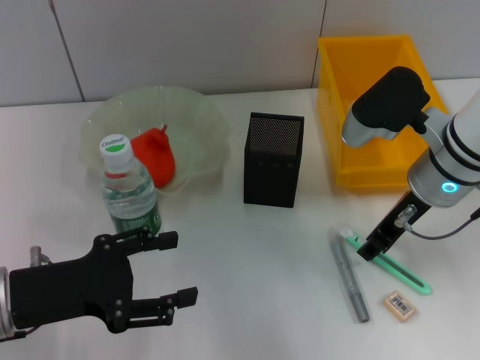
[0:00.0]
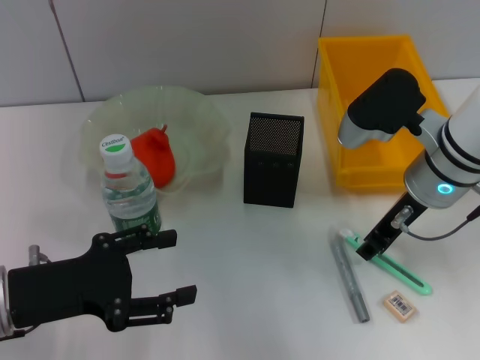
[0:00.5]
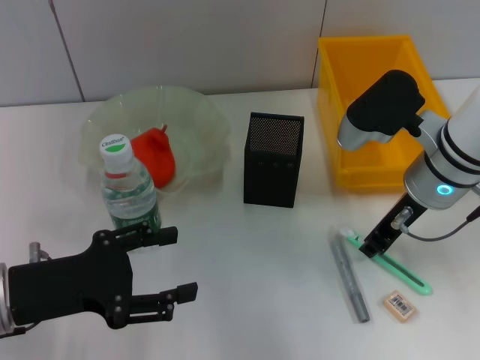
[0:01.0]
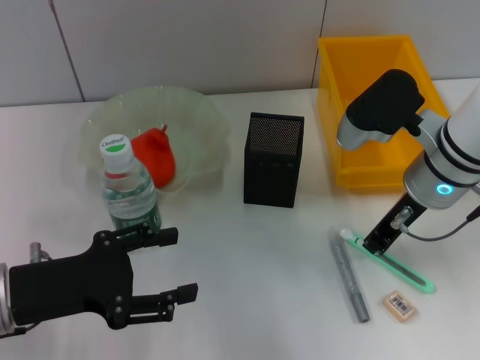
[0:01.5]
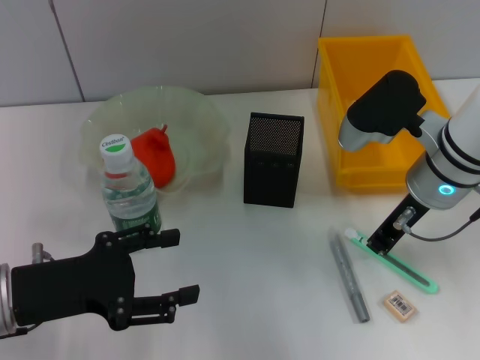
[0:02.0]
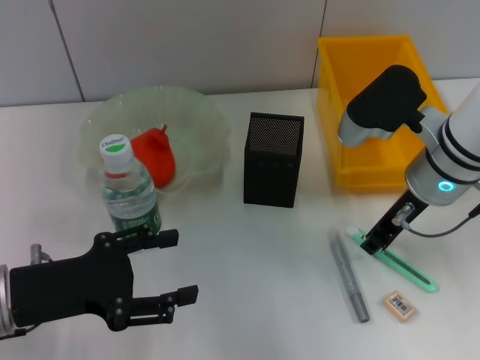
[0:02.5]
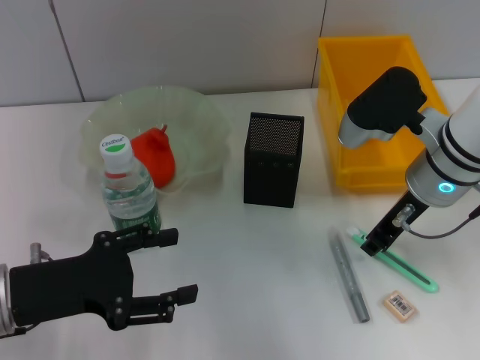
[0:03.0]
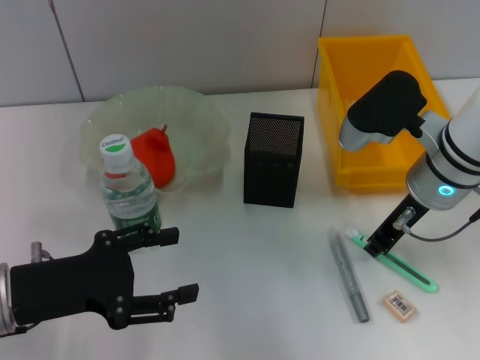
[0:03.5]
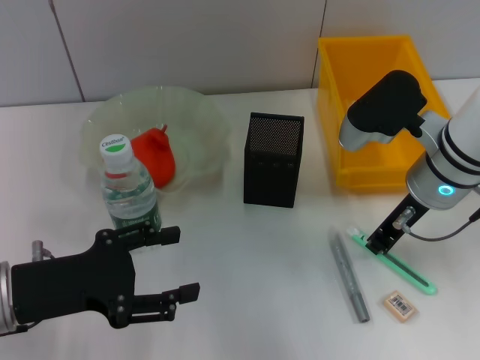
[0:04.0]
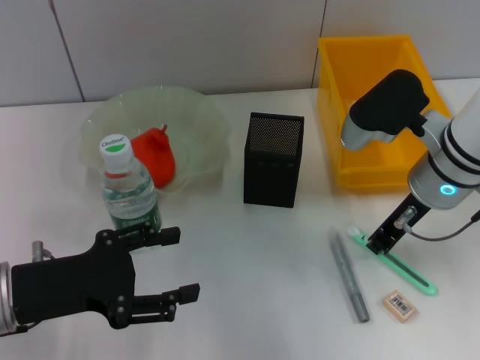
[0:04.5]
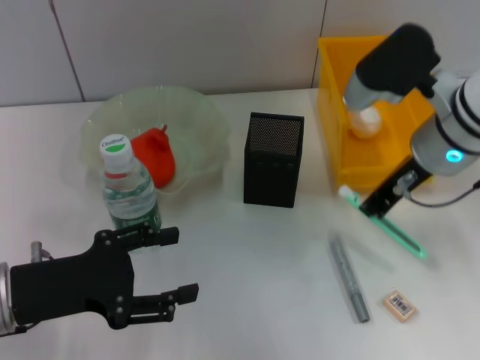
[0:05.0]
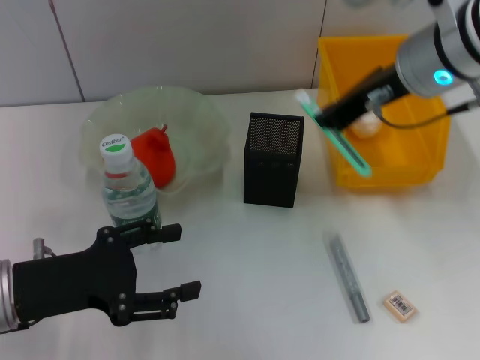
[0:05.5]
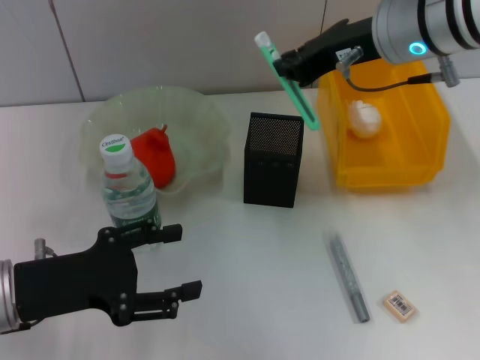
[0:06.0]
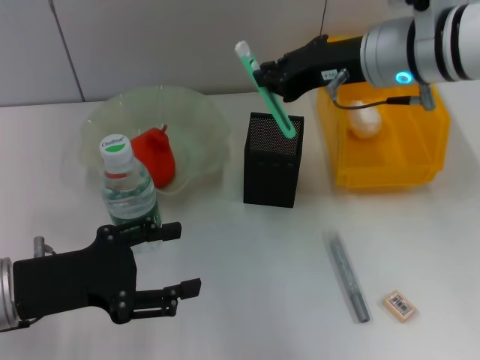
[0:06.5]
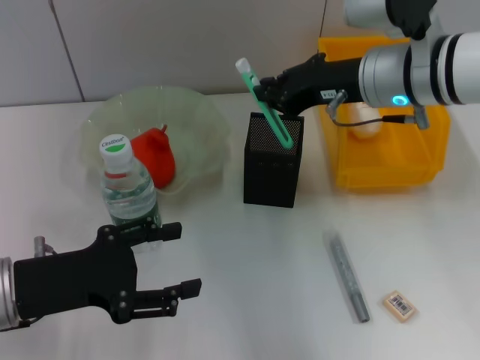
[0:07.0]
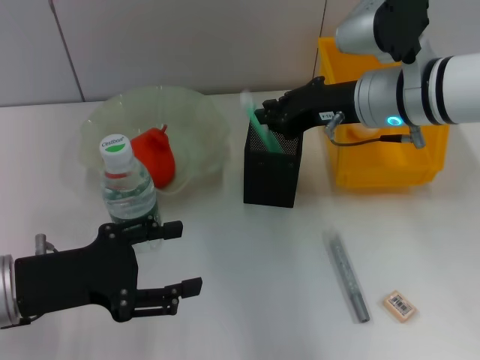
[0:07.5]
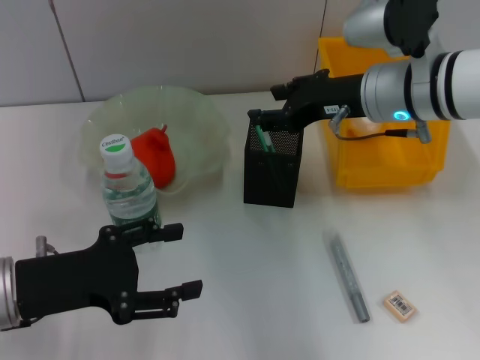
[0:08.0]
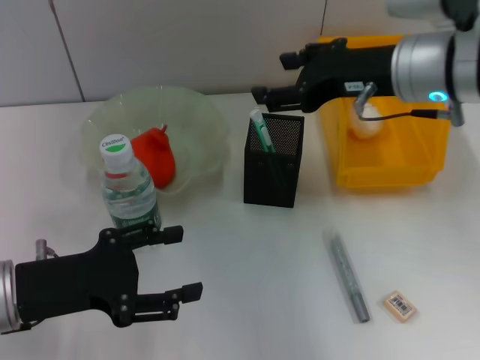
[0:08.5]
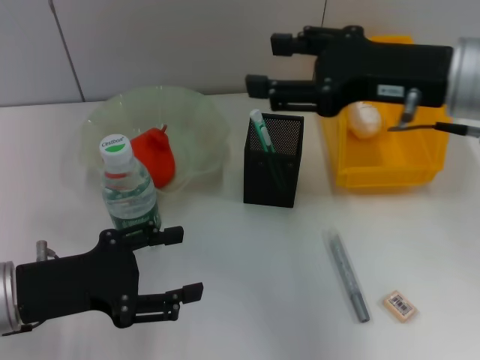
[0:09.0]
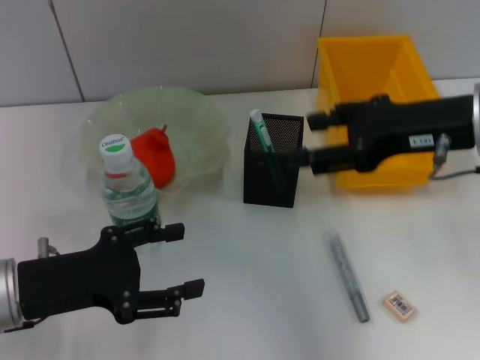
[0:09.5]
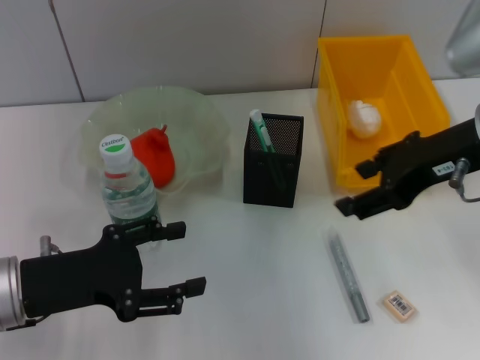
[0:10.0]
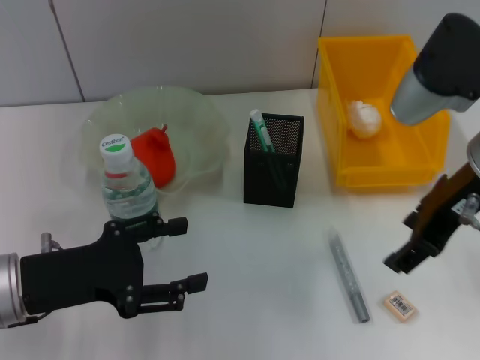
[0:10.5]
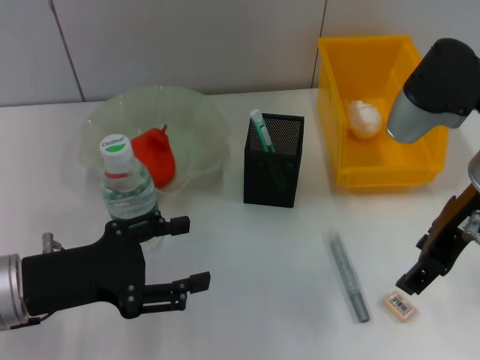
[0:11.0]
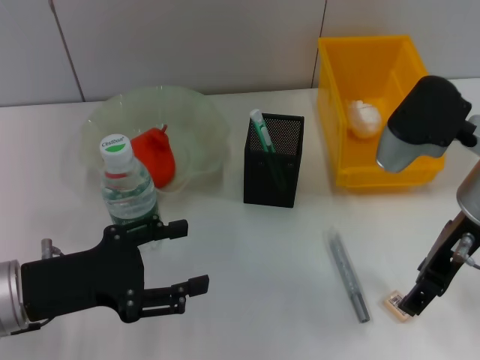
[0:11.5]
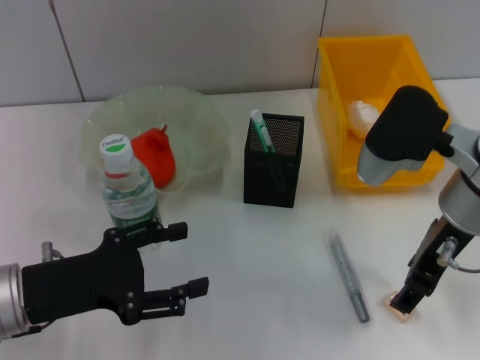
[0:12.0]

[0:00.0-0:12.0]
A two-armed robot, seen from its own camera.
Step, 0.0 to 4.0 s: Grab the blue utility knife with the right hand.
Step, 4.5 to 7.5 s: Place the blue utility knife into the pen holder with the right hand.
0.0 to 2.0 s: The right gripper closes its fingers.
2.0 to 4.0 s: Neither gripper changes place.
4.0 to 6.0 s: The right gripper goes about 10 cm upward.
6.0 to 8.0 s: The right gripper travels downward by some 5 cm.
8.0 to 10.0 s: The right gripper shifts roughly 10 cm backward, and opens.
10.0 to 12.0 s: The right gripper goes roughly 5 cm downward.

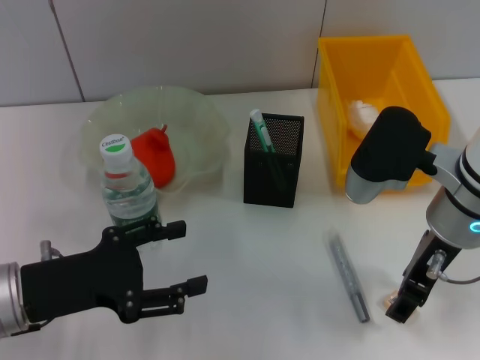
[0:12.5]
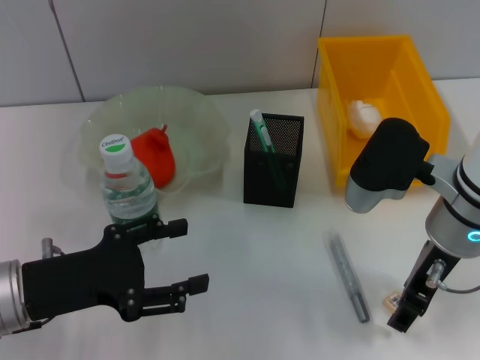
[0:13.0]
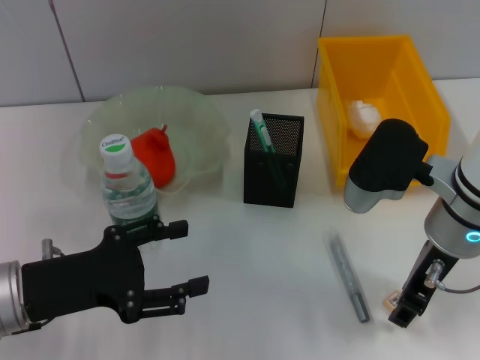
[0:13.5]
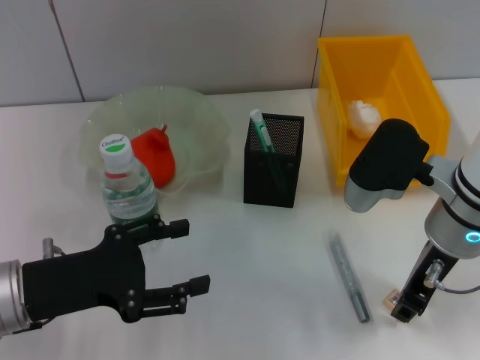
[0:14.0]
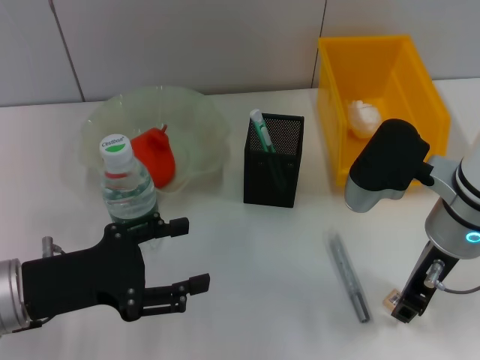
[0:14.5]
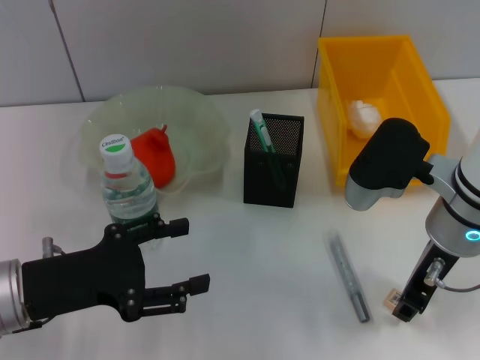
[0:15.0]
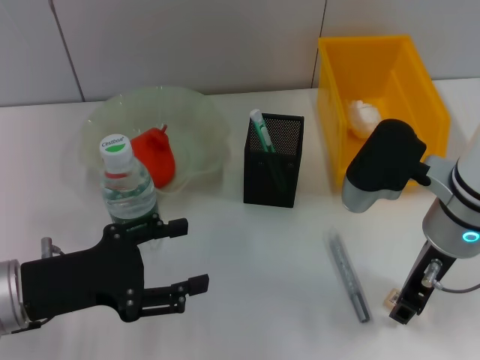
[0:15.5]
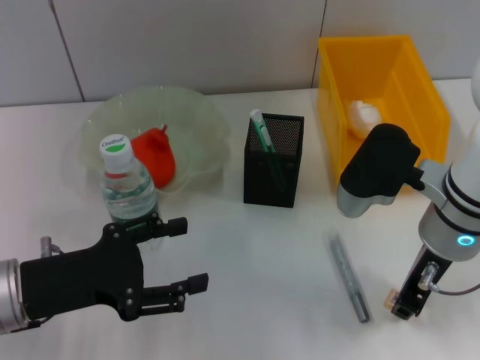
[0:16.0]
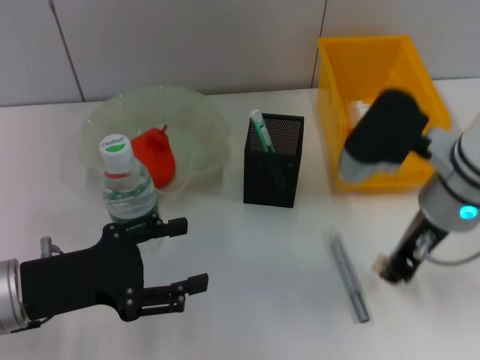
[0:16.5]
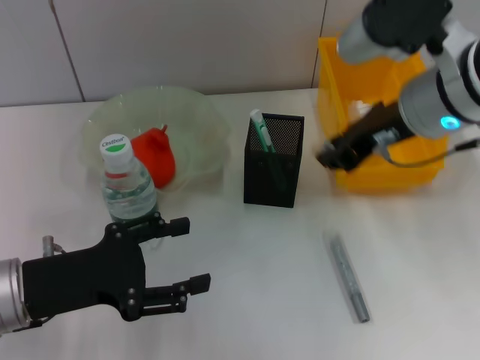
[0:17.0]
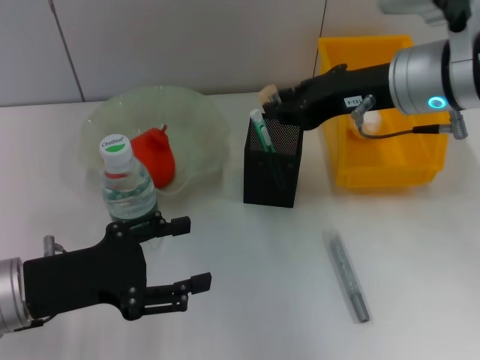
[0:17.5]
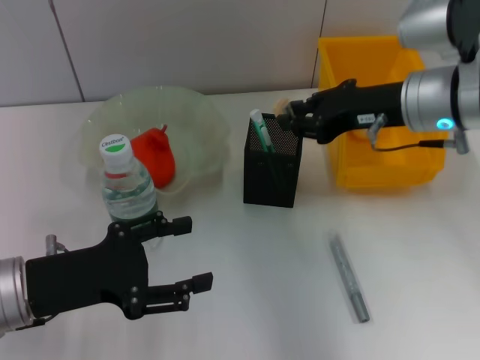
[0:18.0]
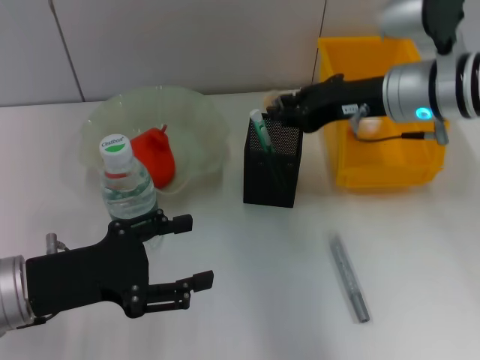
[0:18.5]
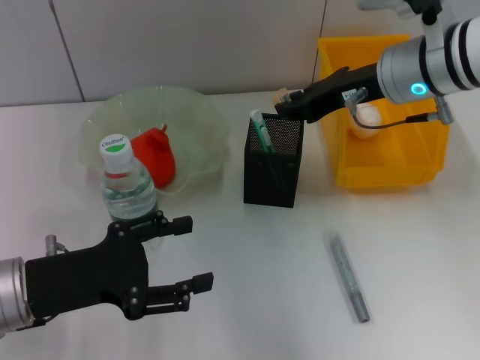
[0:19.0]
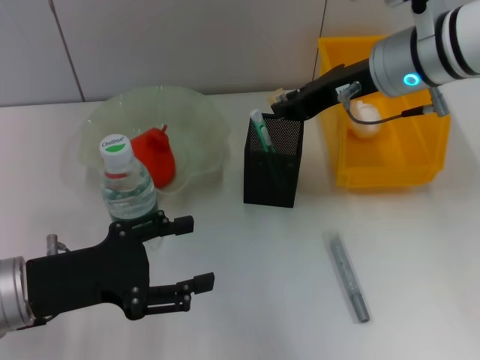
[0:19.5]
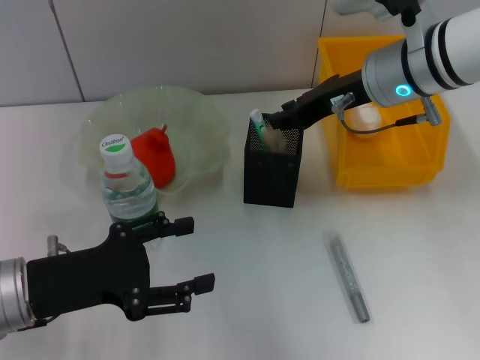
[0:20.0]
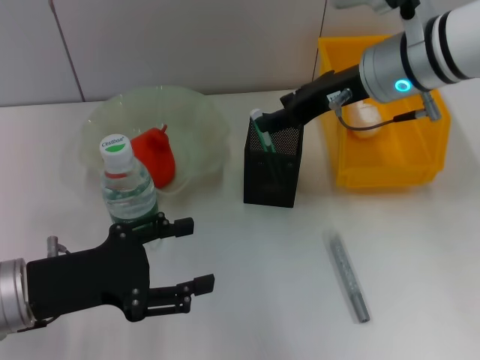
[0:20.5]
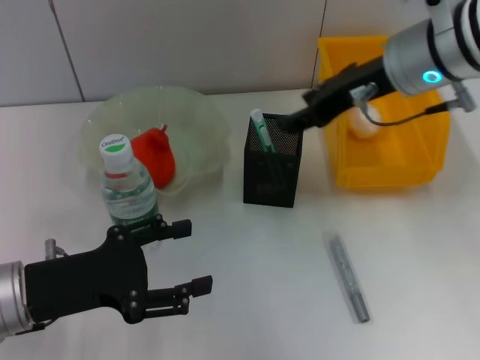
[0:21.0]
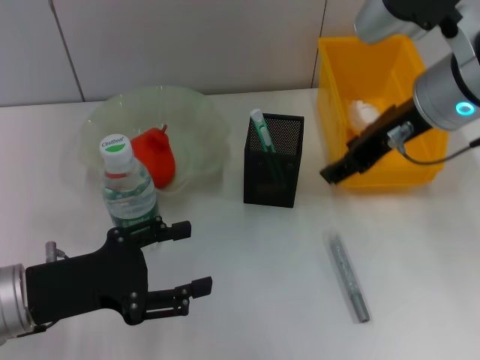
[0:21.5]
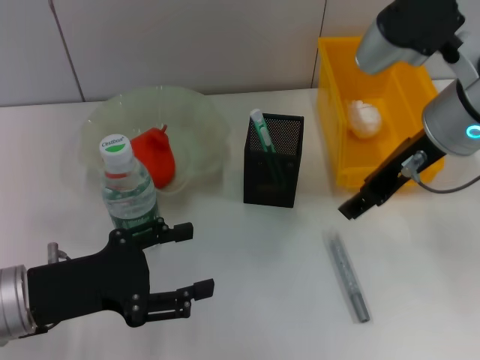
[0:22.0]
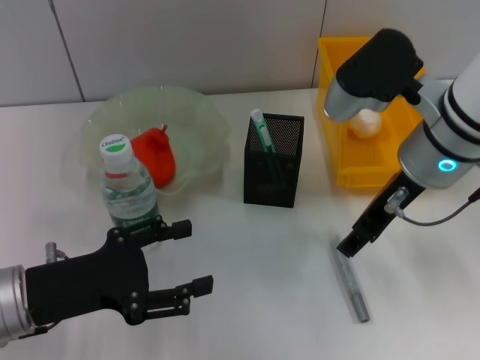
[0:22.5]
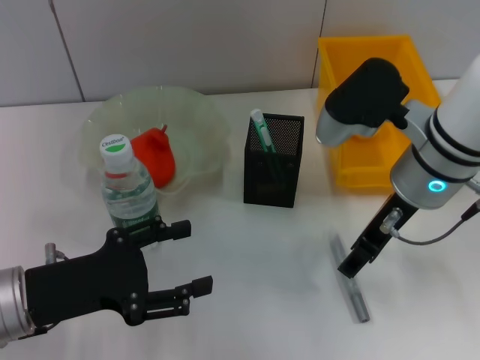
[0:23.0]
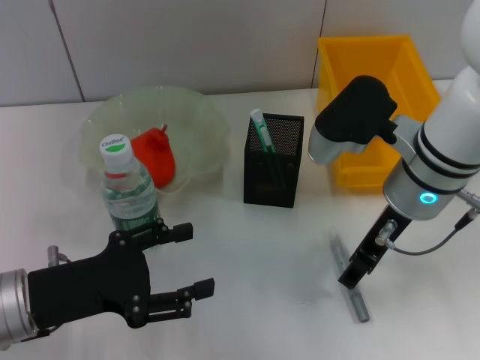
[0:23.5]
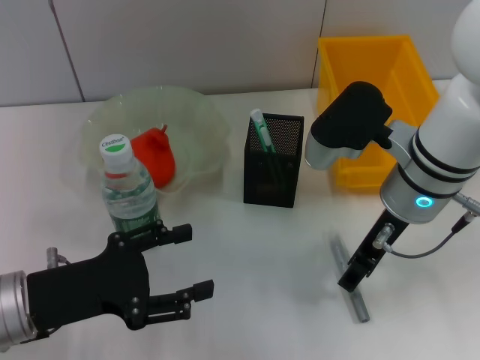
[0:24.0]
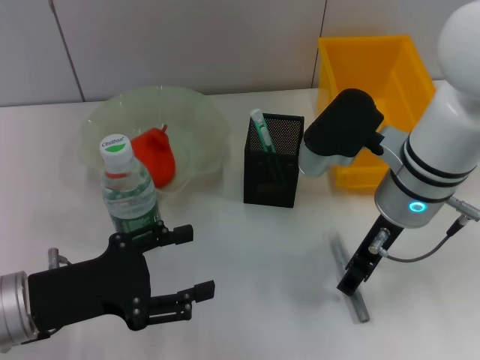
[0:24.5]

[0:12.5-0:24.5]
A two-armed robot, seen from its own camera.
Step, 12.5 to 16.0 s: Grab the eraser with the right hand.
Step, 16.5 to 20.0 s: Put the eraser into the pen holder with the right hand.
12.5 to 14.5 s: The right gripper closes.
14.5 to 16.5 s: The grippers stay close to where they were, moving slightly.
16.5 to 18.5 s: The right gripper heads forward, covering approximately 10 cm.
18.5 to 20.5 s: The right gripper opens up.
20.5 to 22.5 s: The right gripper travels backward by roughly 5 cm.
22.5 to 24.5 s: The grippers stay close to where they were, moving slightly.

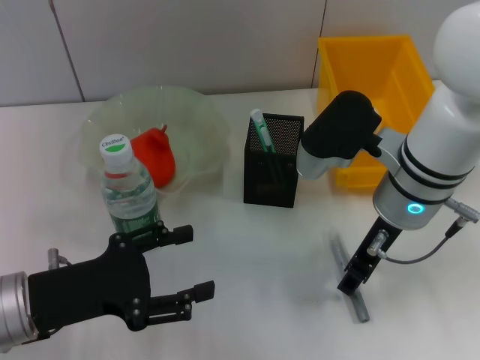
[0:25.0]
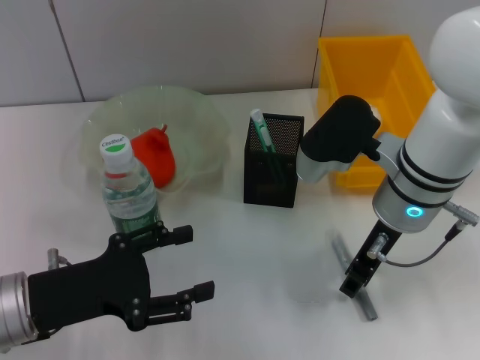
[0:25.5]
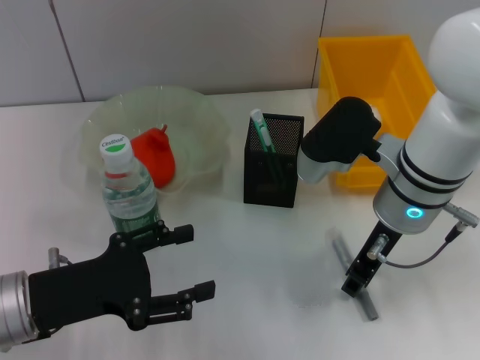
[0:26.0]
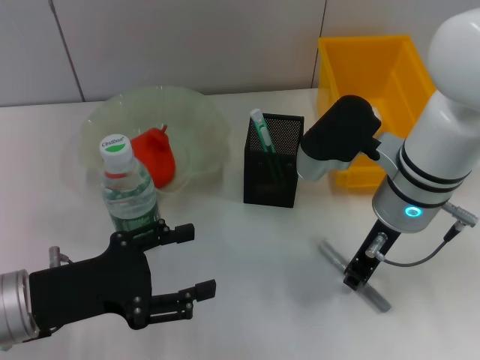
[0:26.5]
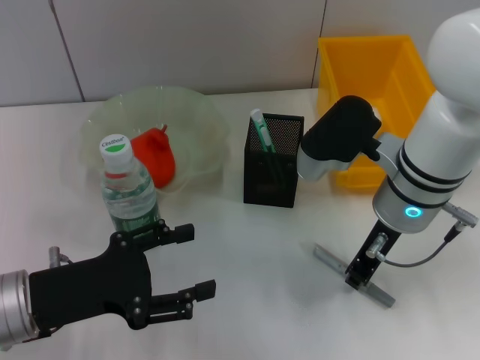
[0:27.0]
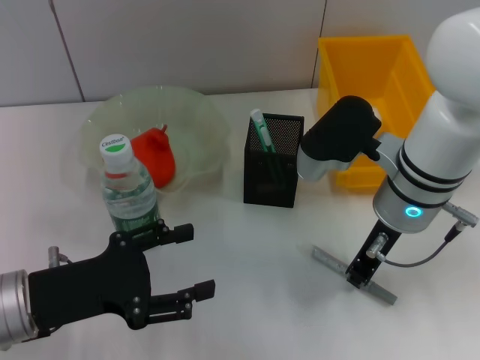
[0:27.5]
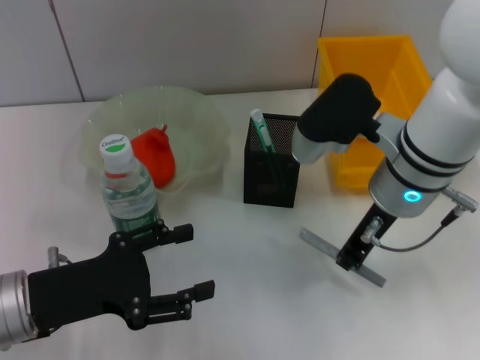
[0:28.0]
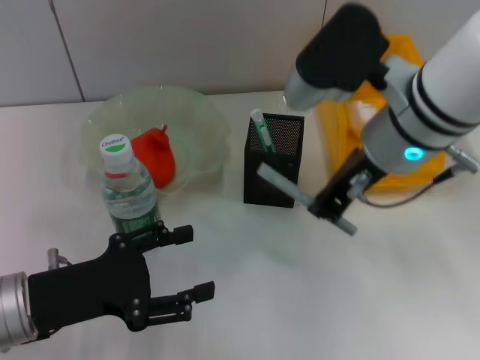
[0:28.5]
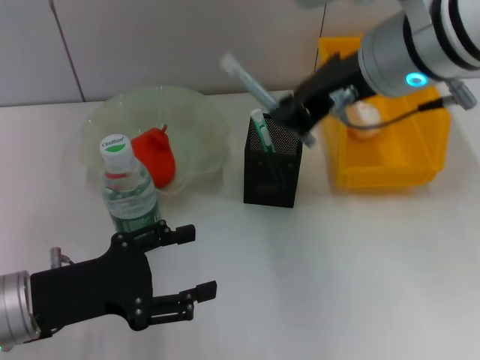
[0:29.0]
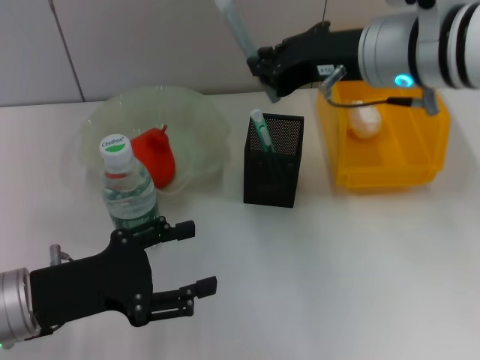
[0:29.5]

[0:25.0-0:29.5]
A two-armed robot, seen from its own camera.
Step, 25.0 to 27.0 s: Grab the gray glue with the right hand.
25.0 to 27.0 s: The right gripper closes.
27.0 to 29.5 s: The right gripper travels upward by some 10 cm.
